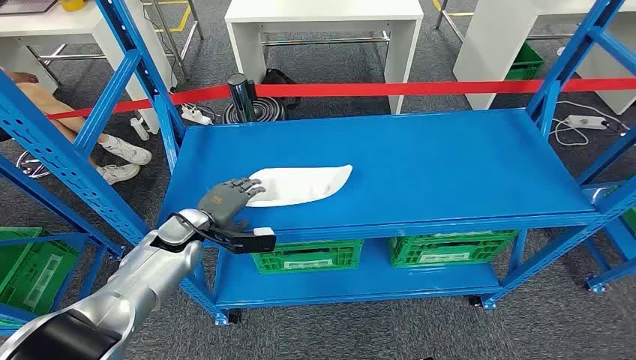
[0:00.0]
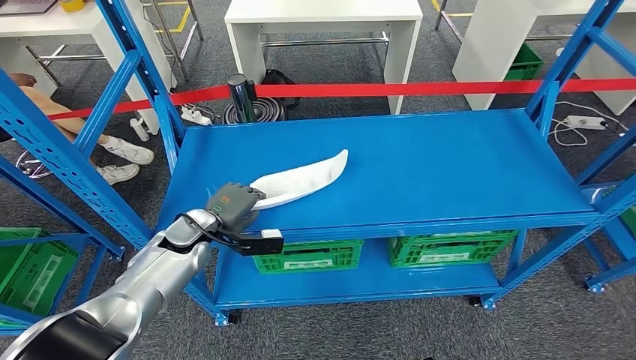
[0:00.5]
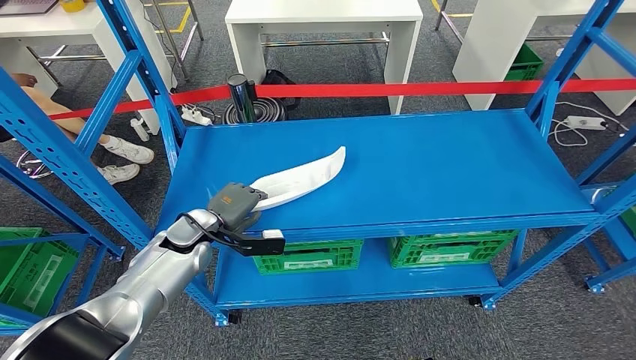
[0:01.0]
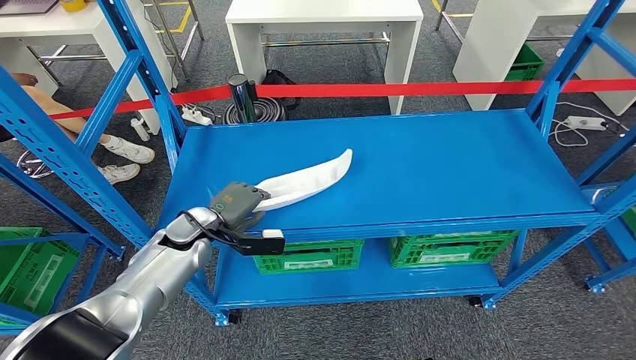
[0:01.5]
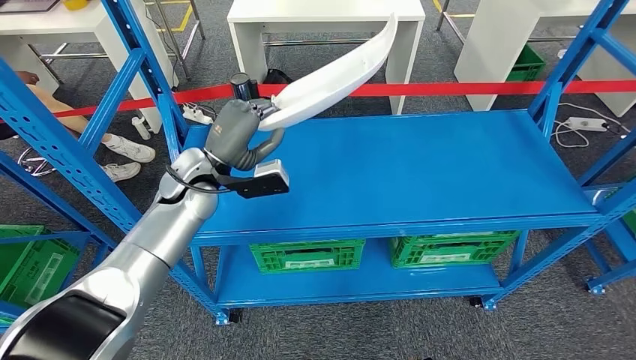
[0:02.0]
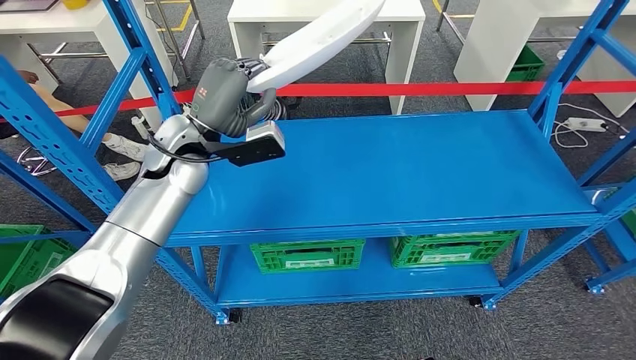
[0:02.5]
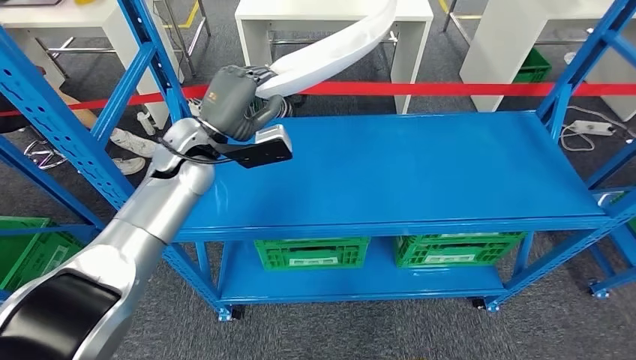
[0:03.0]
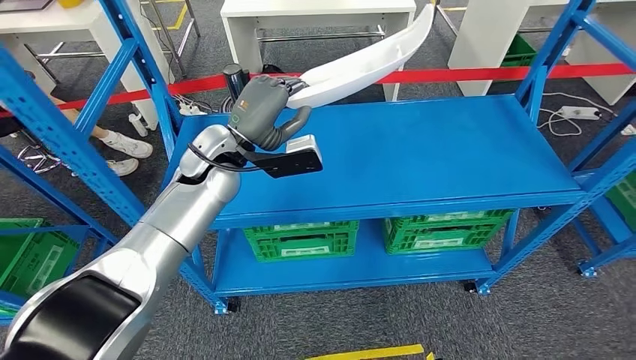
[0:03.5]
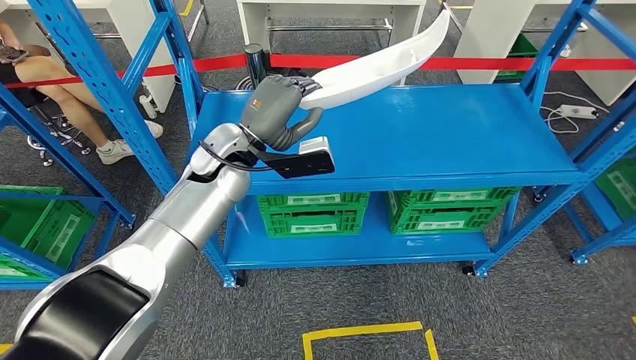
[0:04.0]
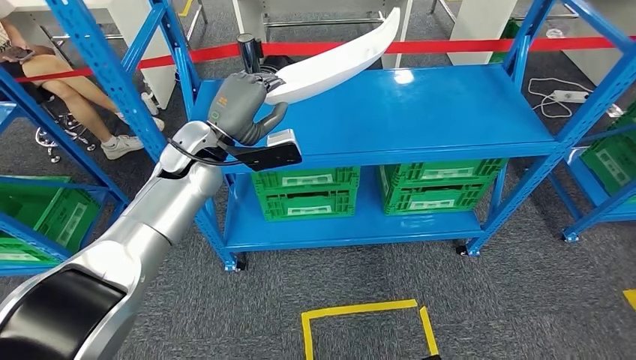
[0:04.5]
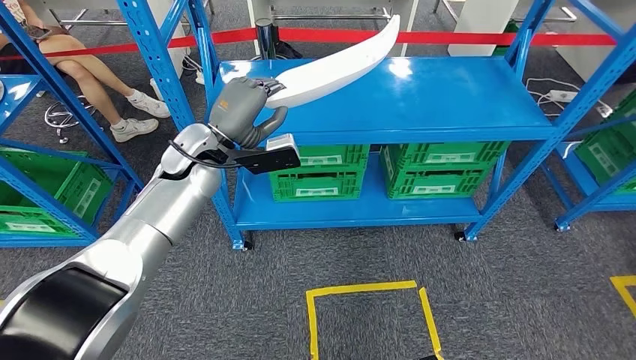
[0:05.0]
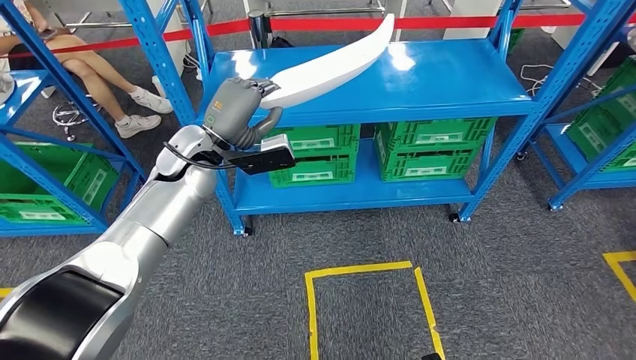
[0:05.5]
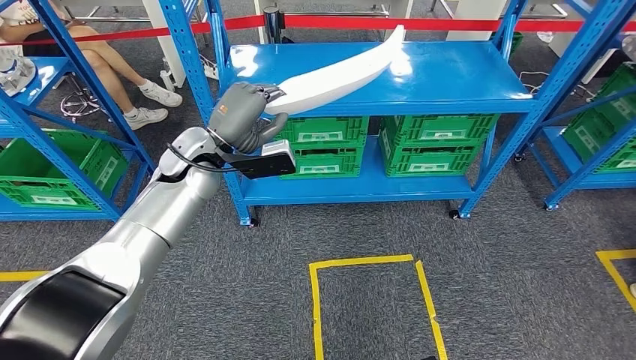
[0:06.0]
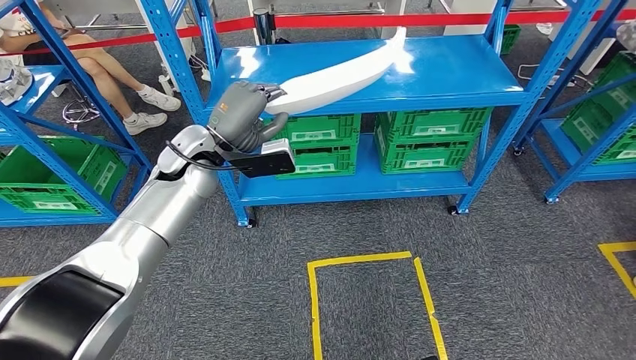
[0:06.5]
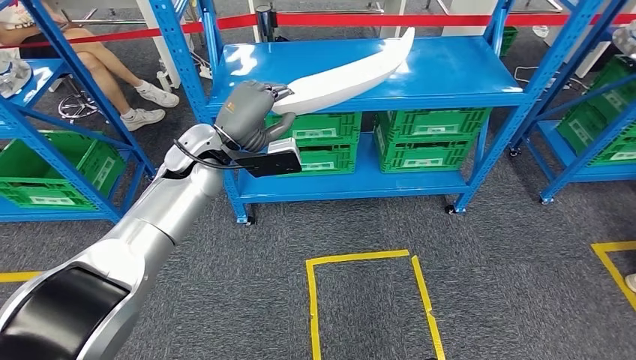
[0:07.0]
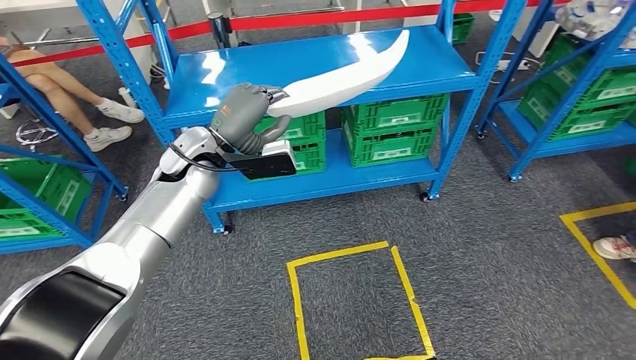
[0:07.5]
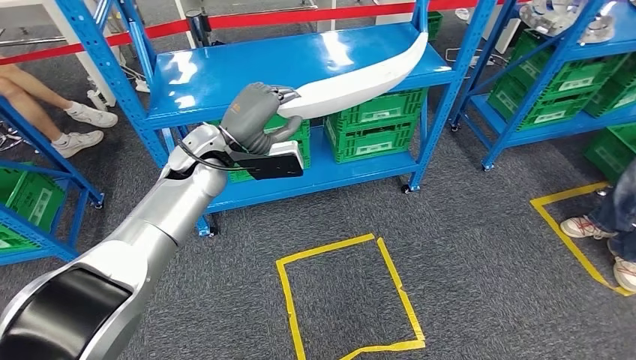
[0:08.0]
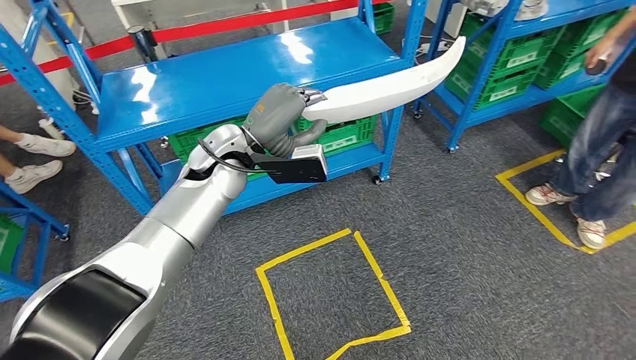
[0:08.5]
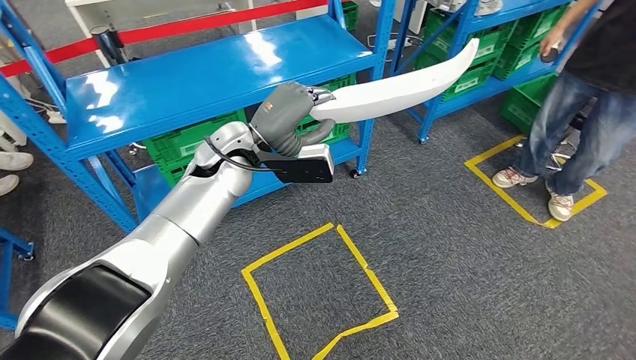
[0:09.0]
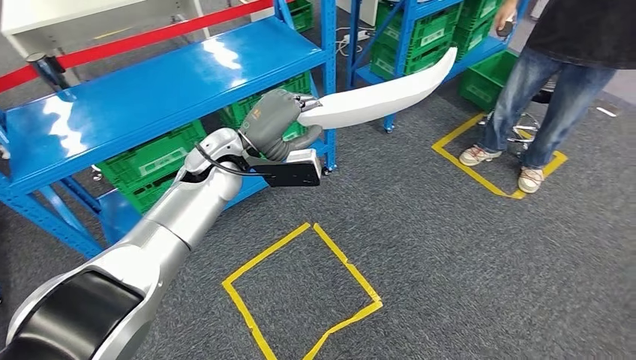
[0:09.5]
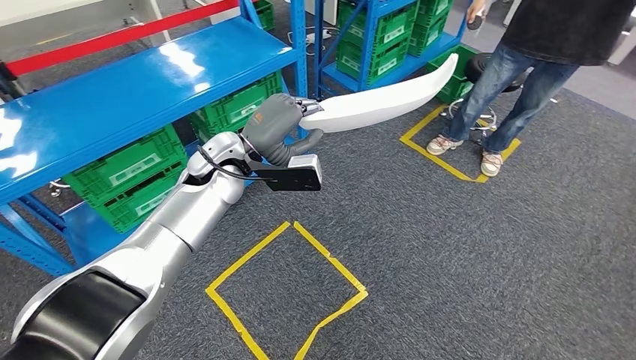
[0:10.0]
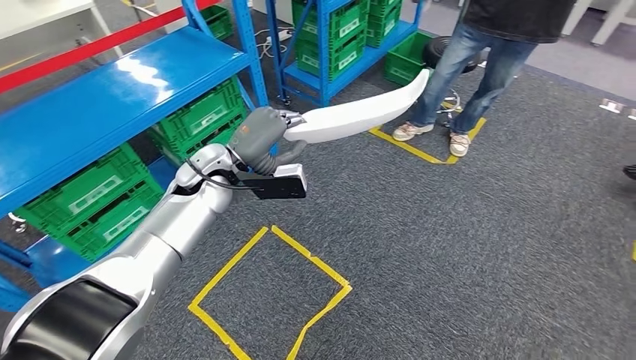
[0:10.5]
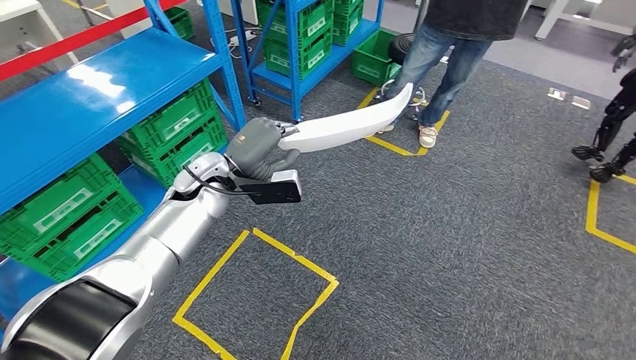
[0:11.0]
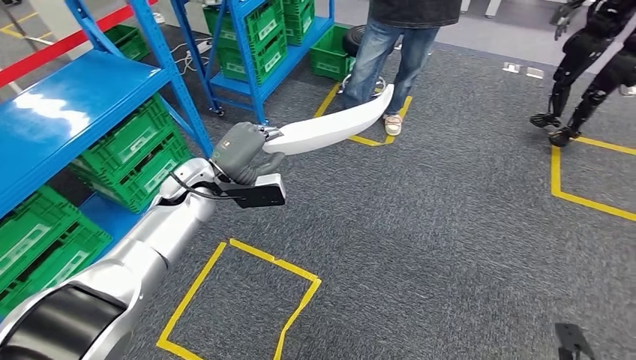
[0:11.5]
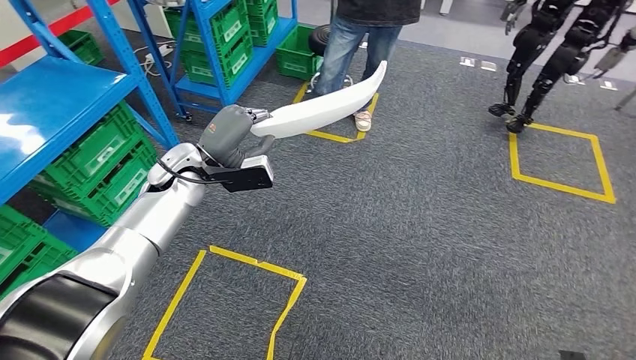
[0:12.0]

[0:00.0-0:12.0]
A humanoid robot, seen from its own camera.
Step, 0:00.0 to 0:02.0: Pick up the small parts from the shelf.

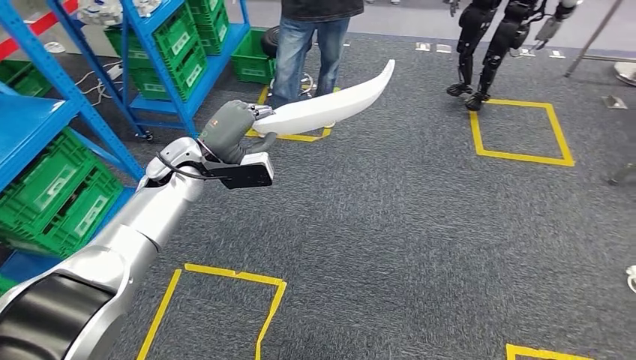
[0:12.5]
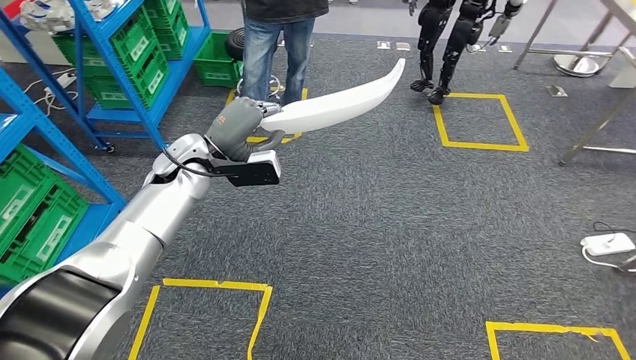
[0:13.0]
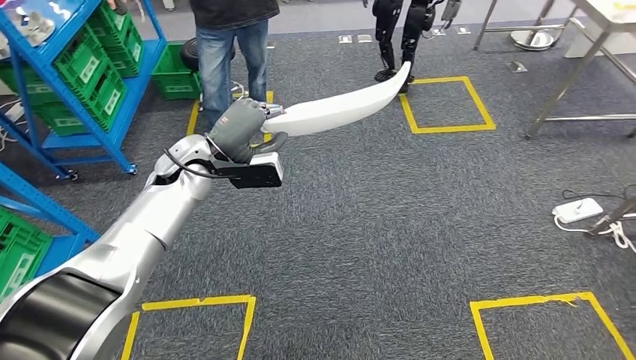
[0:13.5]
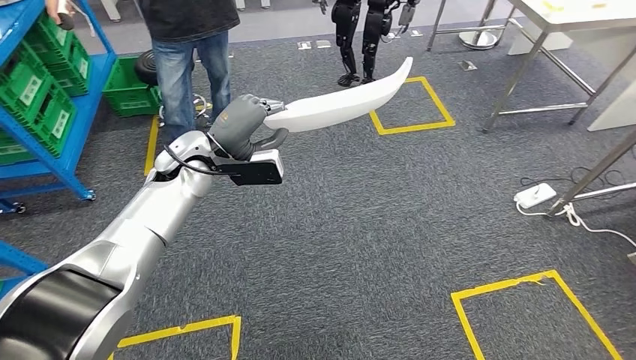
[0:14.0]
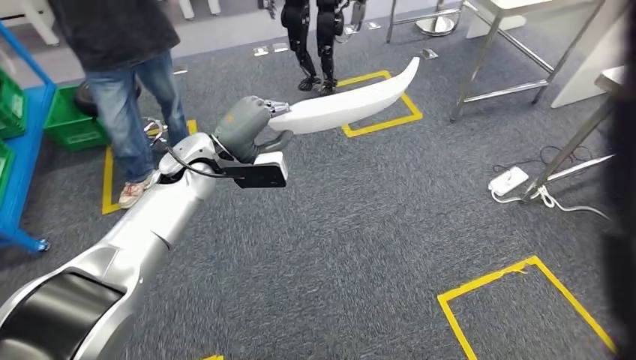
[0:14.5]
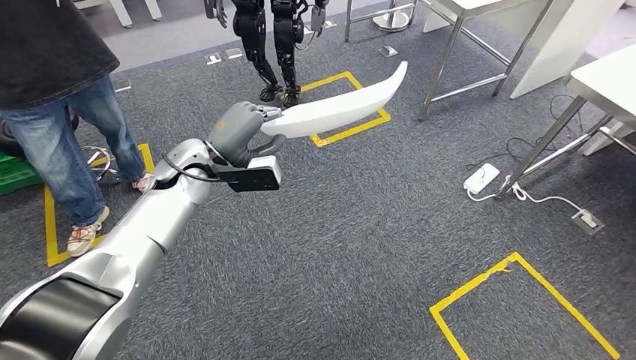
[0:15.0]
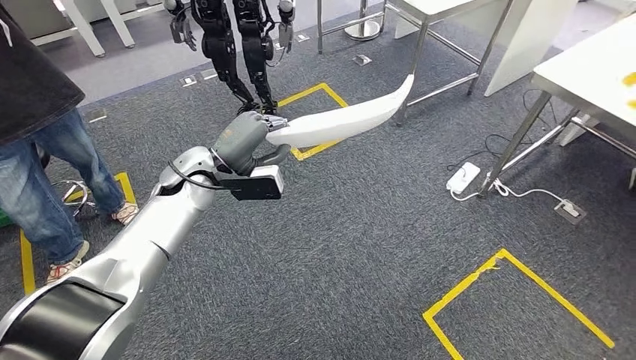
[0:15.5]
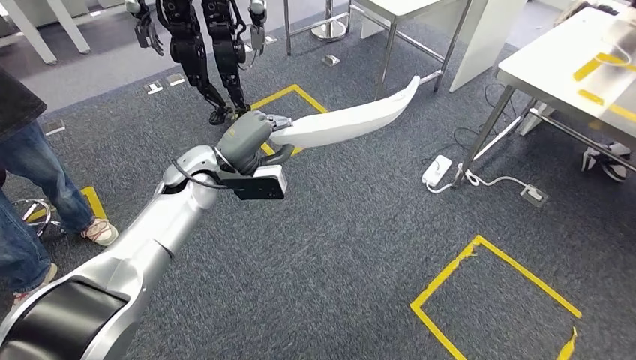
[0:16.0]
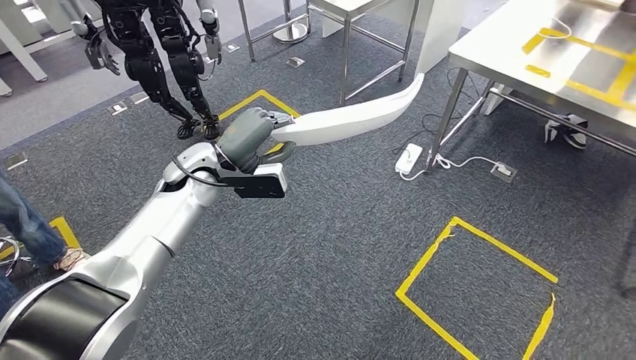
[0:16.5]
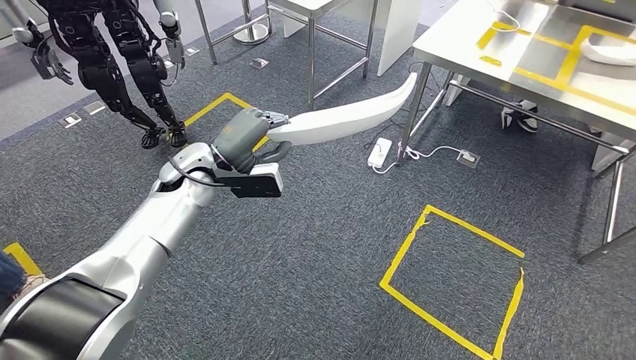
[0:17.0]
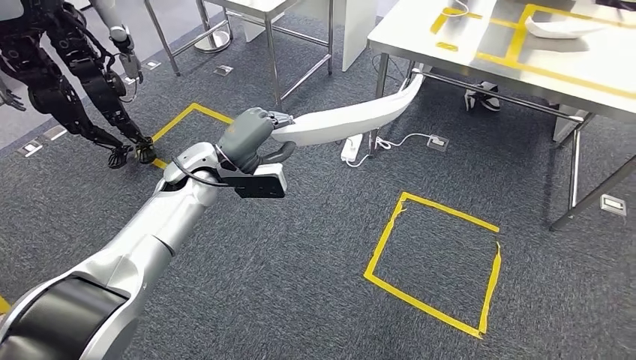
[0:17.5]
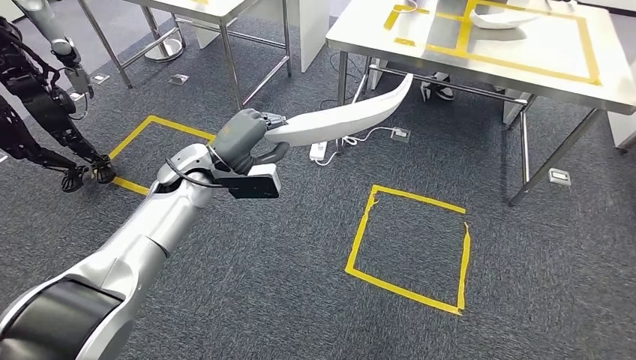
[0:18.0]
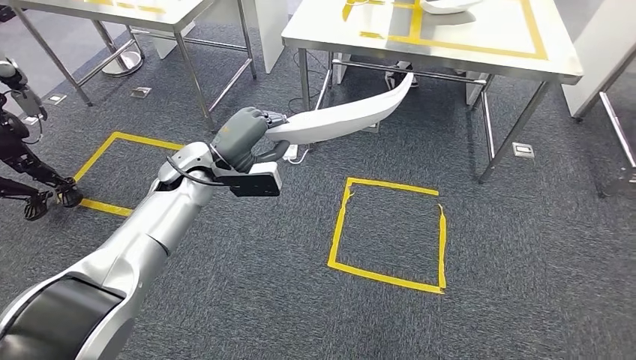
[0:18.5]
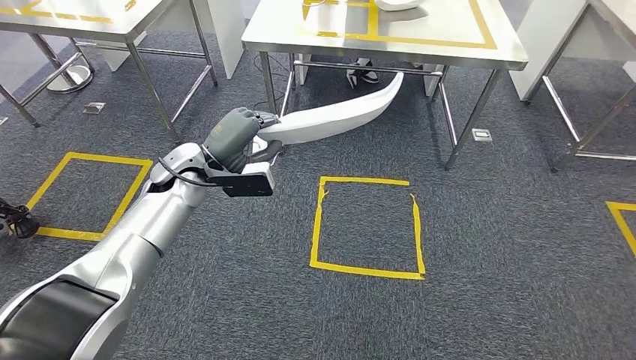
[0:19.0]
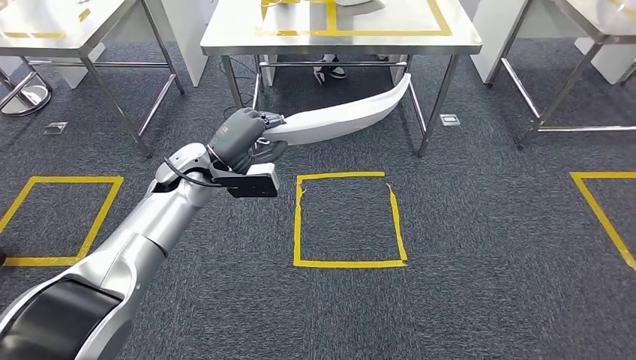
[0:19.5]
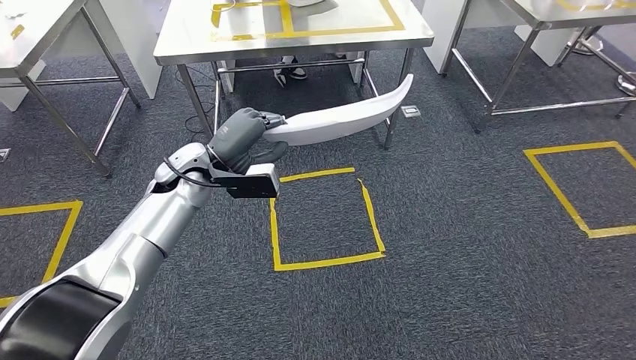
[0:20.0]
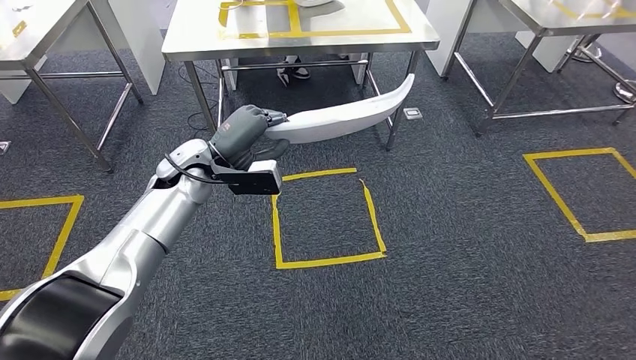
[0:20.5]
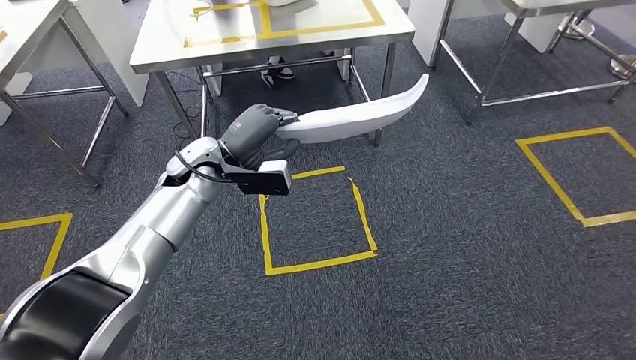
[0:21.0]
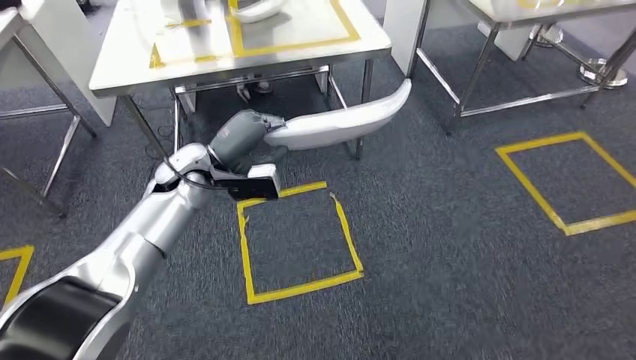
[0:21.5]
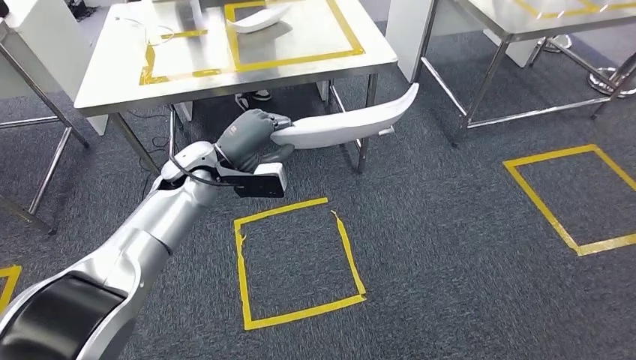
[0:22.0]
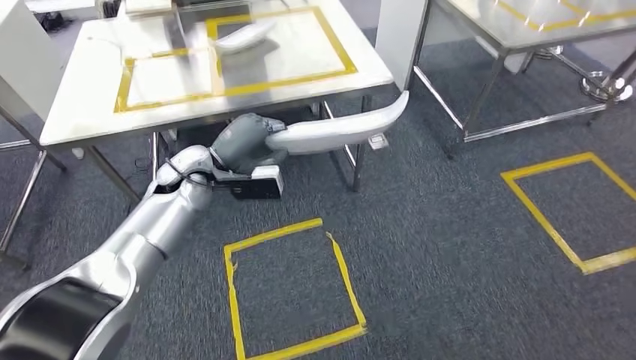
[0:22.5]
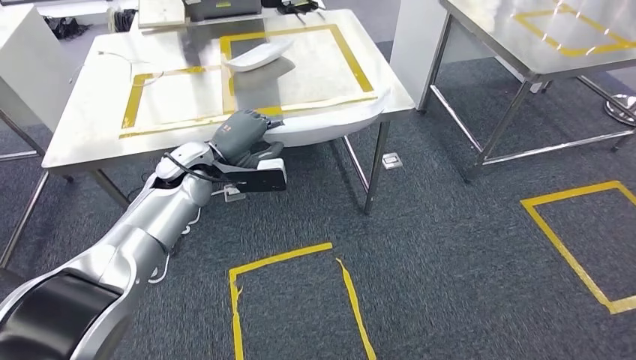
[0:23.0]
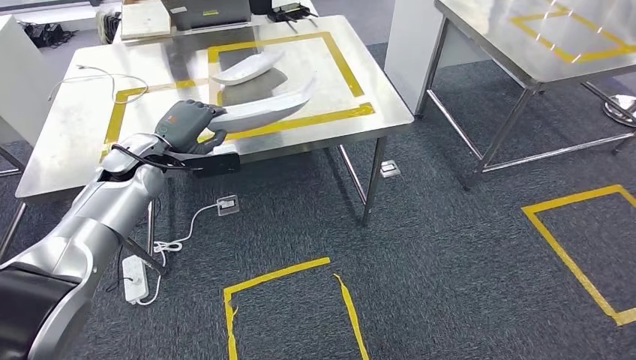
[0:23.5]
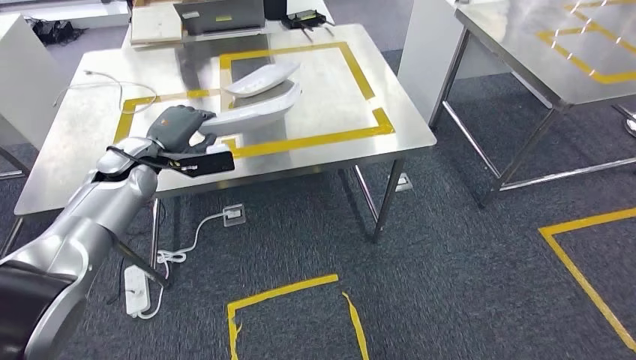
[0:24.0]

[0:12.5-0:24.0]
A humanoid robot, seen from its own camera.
Step, 0:12.5 to 0:21.5: Move the small parts to the workbench.
